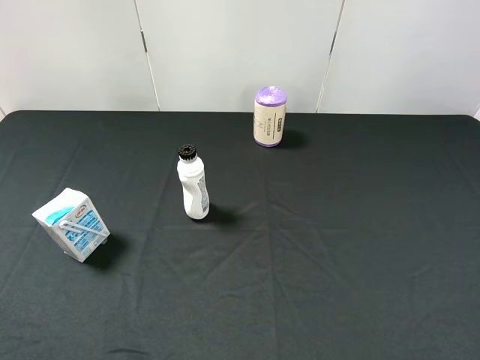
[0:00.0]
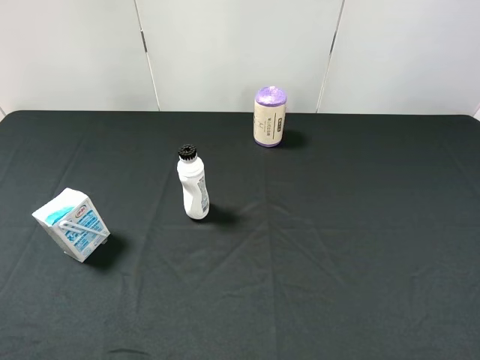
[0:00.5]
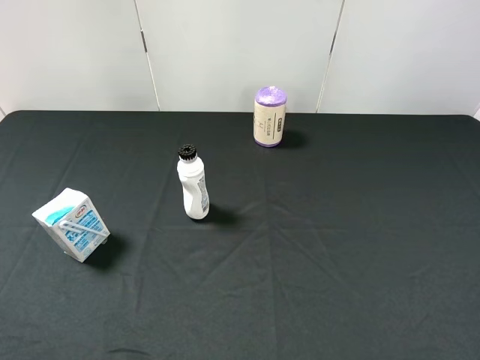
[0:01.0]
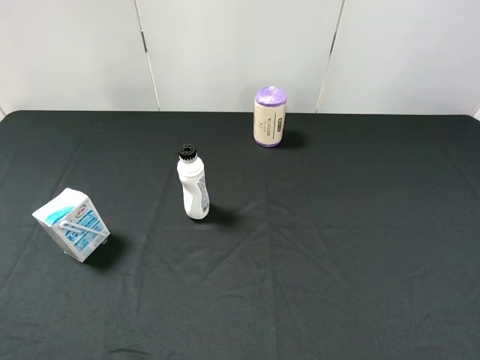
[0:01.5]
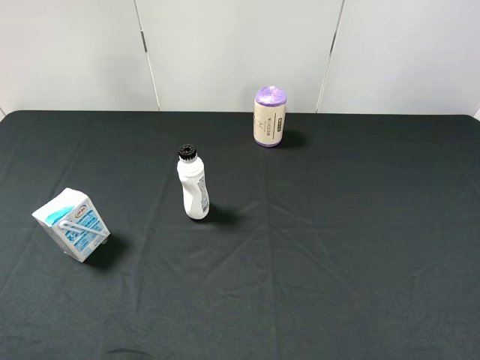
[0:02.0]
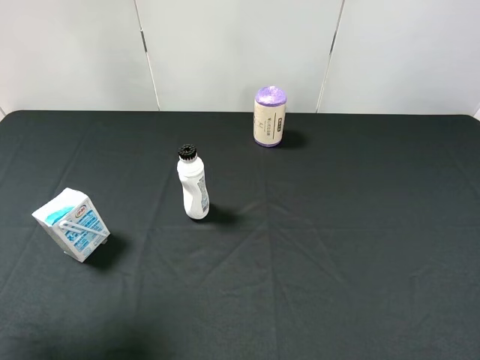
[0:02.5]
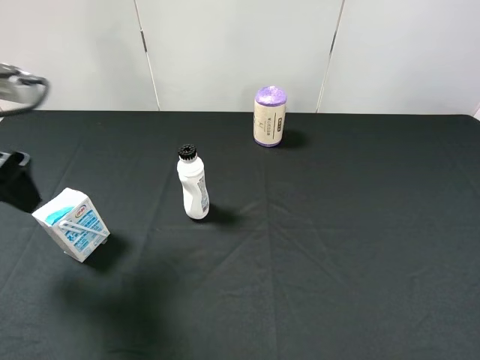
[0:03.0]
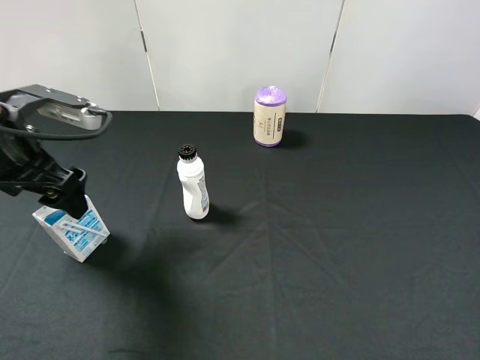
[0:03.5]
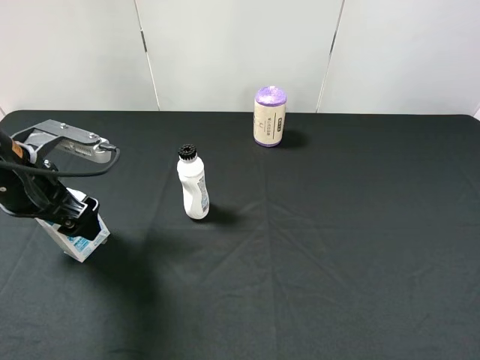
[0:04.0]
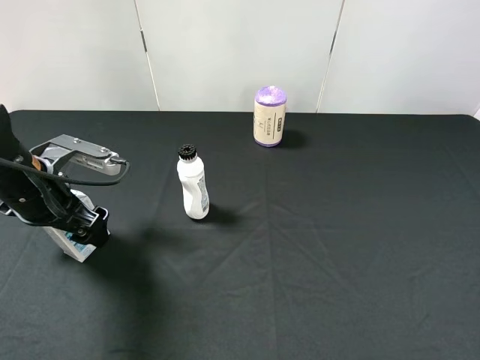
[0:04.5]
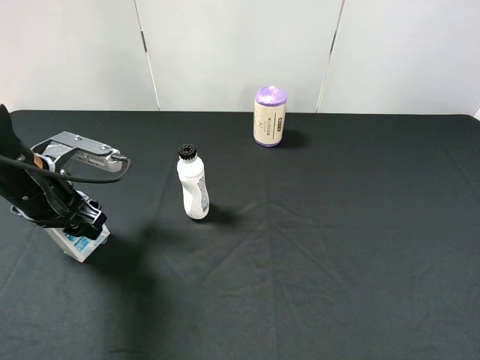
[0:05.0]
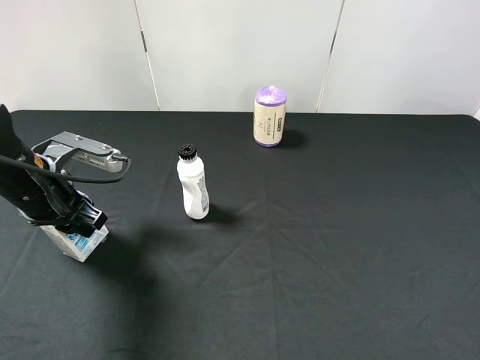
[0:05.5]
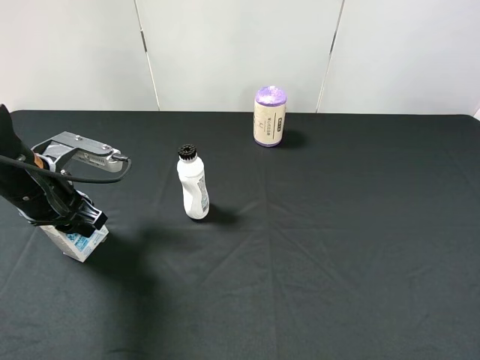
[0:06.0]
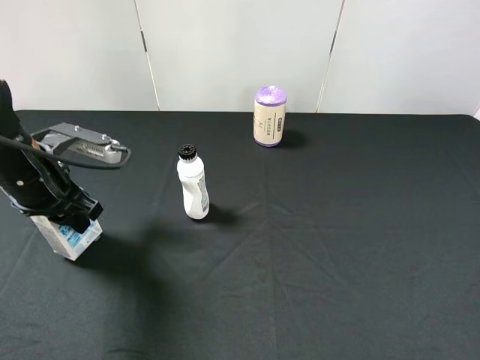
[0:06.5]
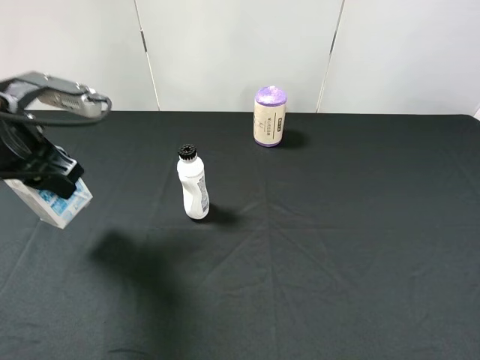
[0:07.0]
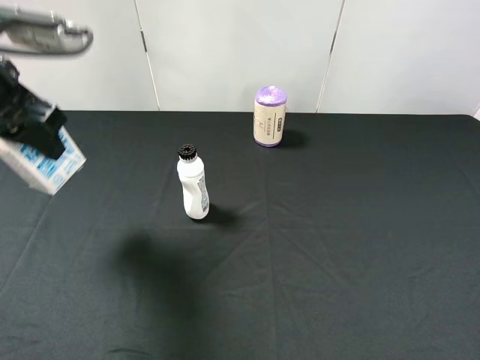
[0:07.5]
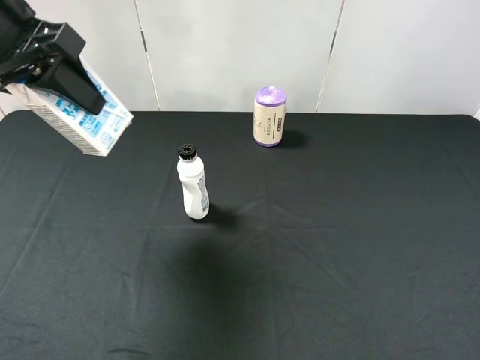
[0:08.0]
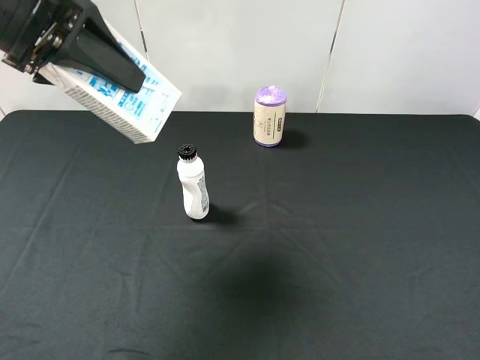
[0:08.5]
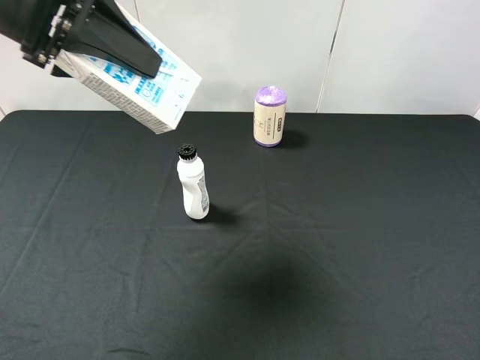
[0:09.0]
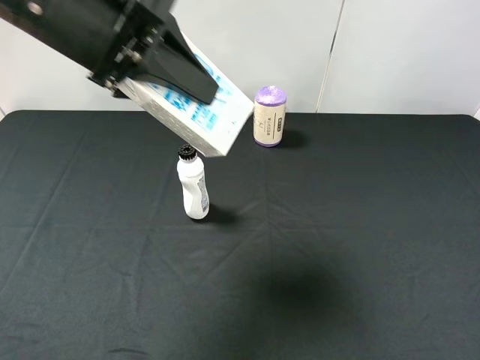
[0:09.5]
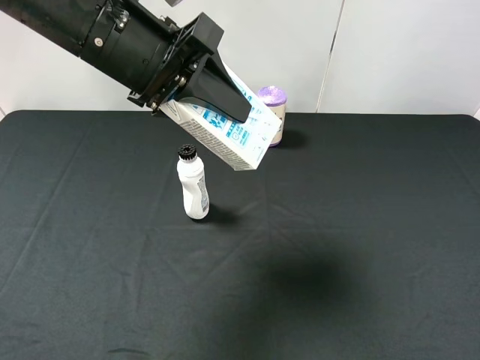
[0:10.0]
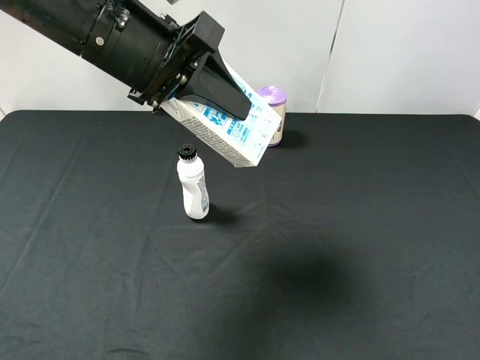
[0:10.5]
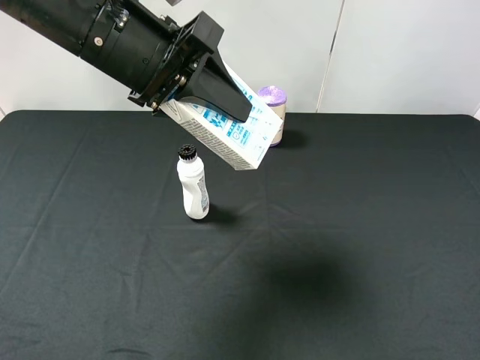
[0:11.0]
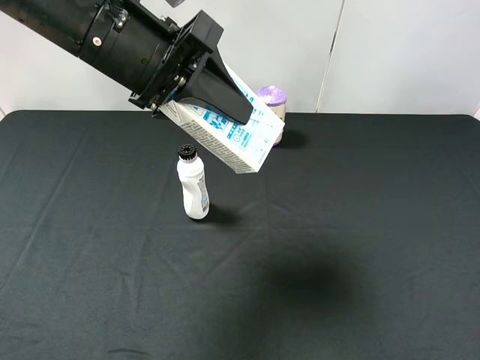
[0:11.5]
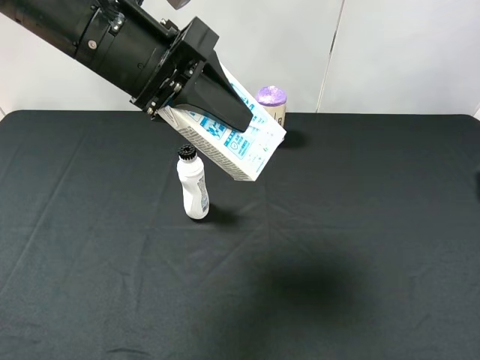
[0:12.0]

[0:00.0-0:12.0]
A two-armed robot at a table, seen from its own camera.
Task of the whole recording: use the left gripper to pick up the item and transfer it from the left gripper to the right gripper.
0:02.0 to 0:04.0: The left gripper moves forward and downward, roughly 25 cm.
0:04.0 to 0:06.0: The left gripper closes up.
0:06.0 to 0:08.0: The left gripper is displaced upward by some 20 cm.
0:08.0 to 0:10.0: The left gripper heads to the right, covering roughly 10 cm.
0:10.0 to 0:12.0: The right gripper travels upward, forward and to the left by roughly 10 cm.

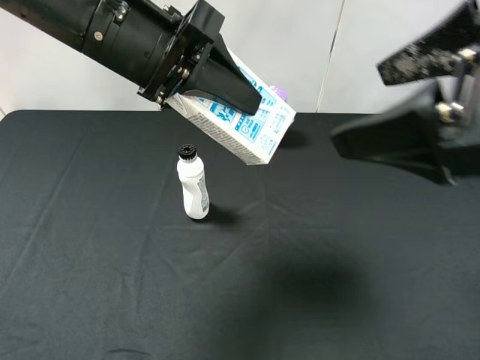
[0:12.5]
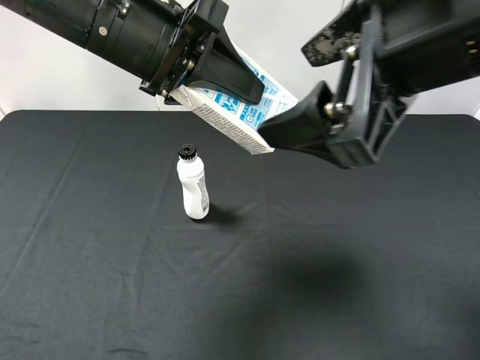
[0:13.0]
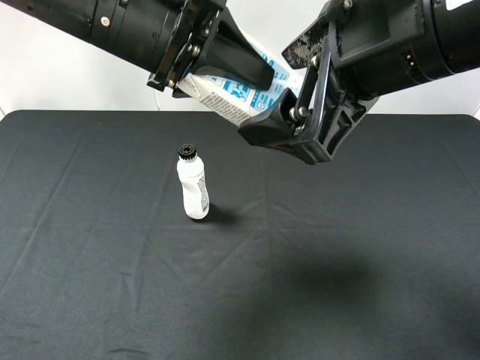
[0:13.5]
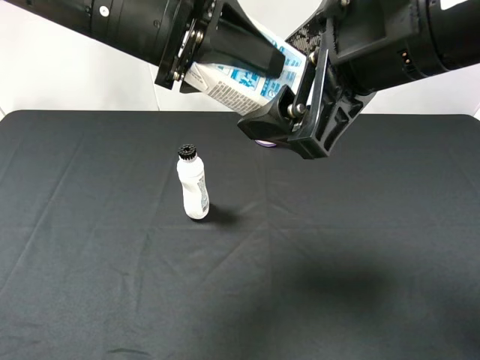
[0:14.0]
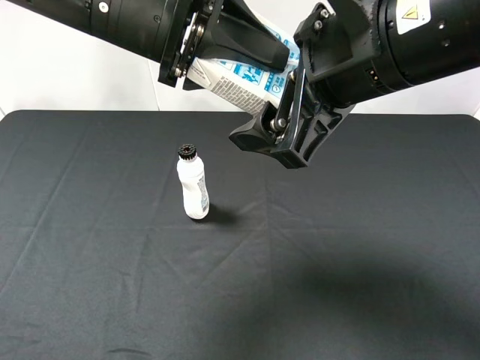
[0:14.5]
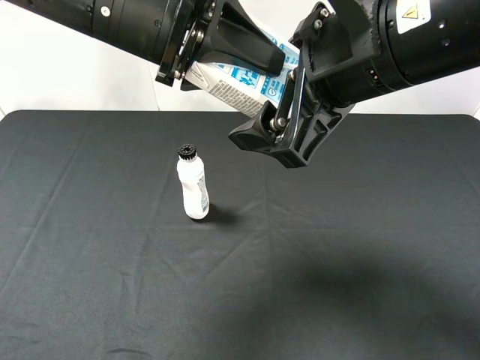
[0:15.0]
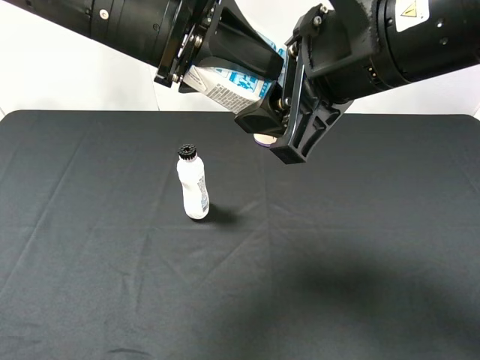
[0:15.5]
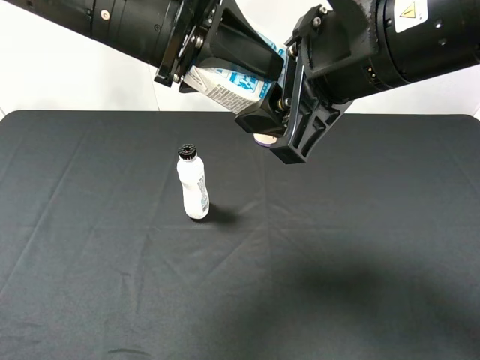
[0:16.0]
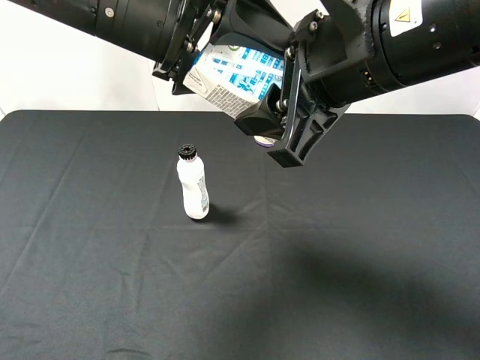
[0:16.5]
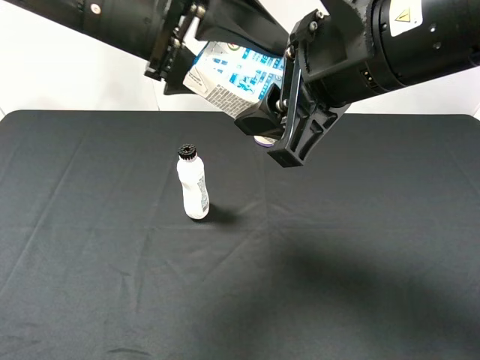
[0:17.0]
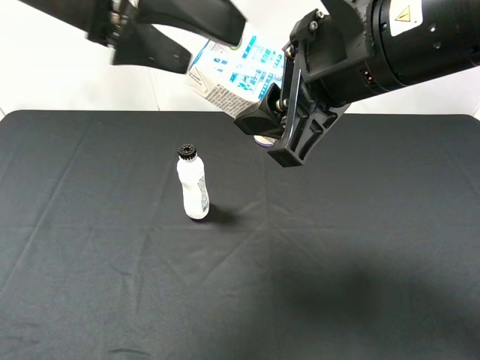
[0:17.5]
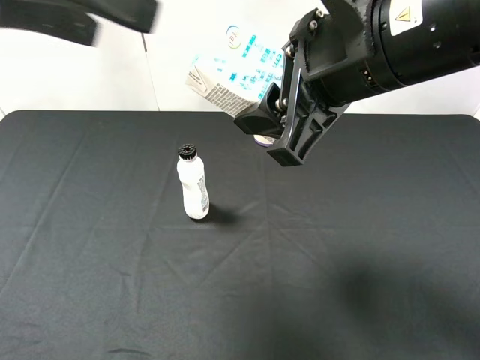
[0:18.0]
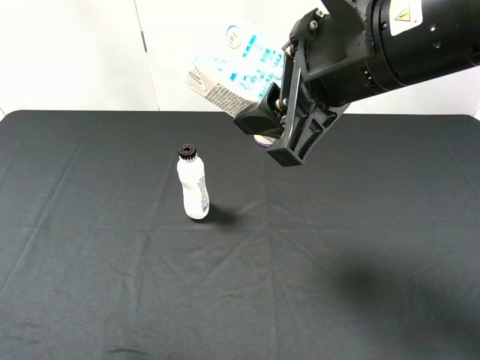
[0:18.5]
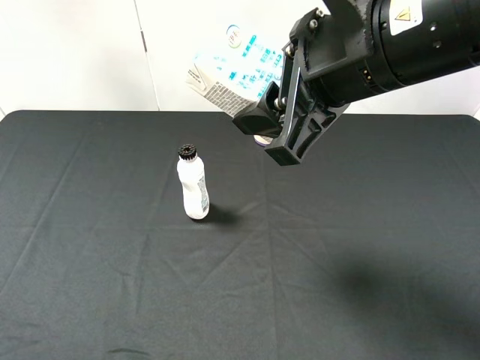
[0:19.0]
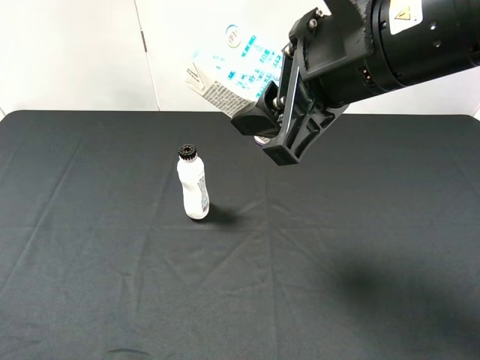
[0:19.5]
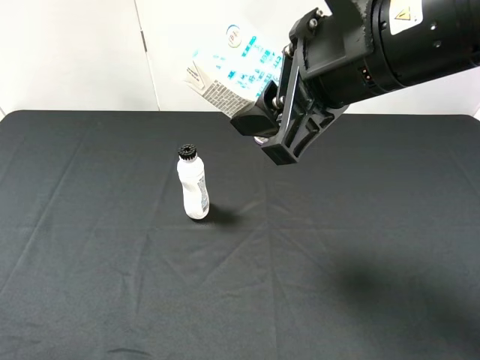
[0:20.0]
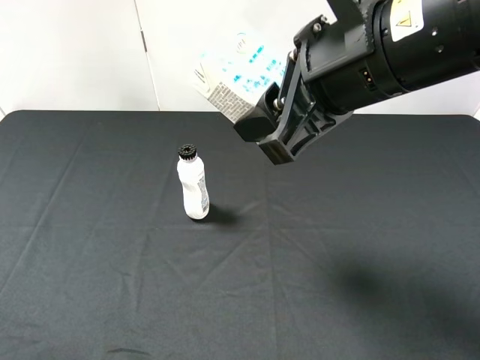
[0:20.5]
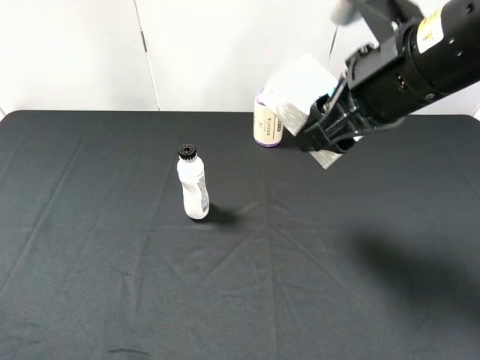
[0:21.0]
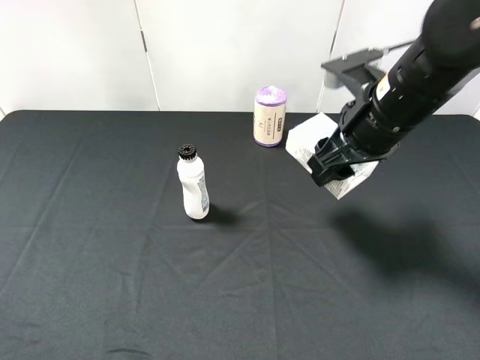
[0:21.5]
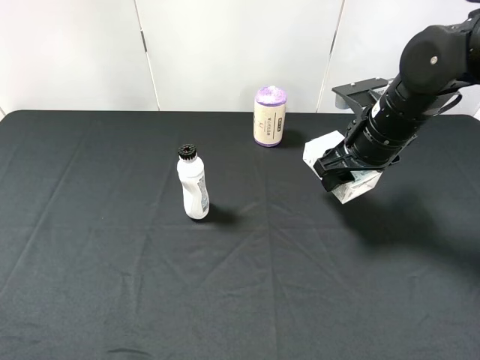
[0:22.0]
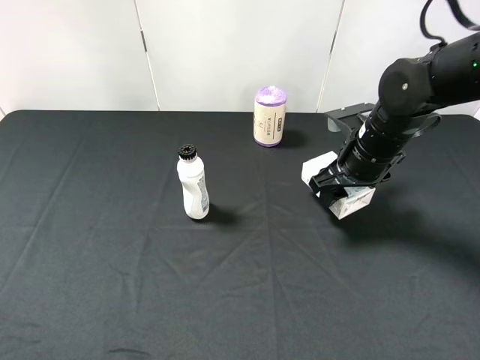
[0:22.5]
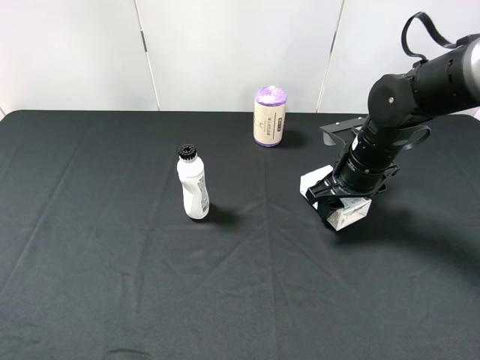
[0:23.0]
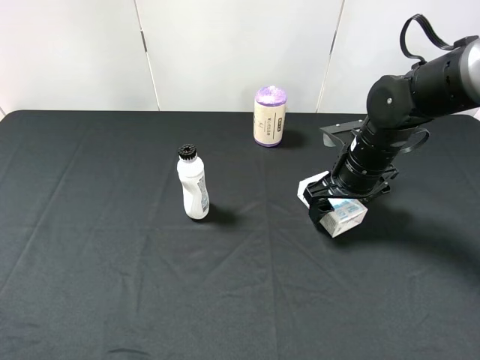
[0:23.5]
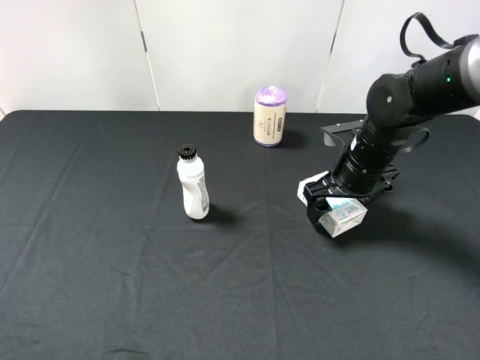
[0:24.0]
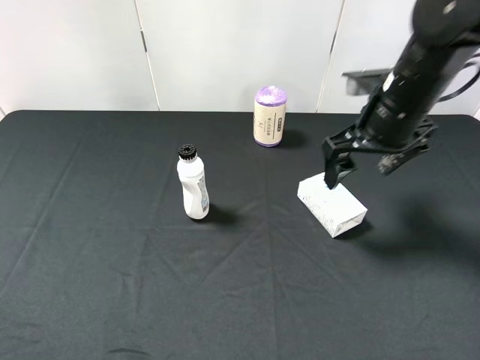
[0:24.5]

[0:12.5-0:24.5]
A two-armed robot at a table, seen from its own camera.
Task of the whole recording: use the left gripper to pick up the item and transfer it from the left gripper to the right gripper.
0:12.5 to 0:14.5: The right gripper goes roughly 5 cm to the left.
0:14.5 to 0:16.5: The right gripper closes. Meanwhile the left gripper opens its fingers.
0:16.5 to 0:18.5: The left gripper heads backward, to the left and upward, covering some 25 cm.
0:18.5 to 0:20.5: The left gripper moves downward and backward, some 15 cm.
0:20.5 to 0:22.5: The right gripper moves downward, forward and to the right, approximately 25 cm.
0:22.5 to 0:24.5: The right gripper goes roughly 10 cm upward, and opens.

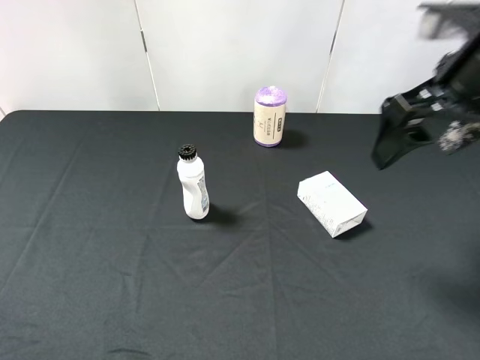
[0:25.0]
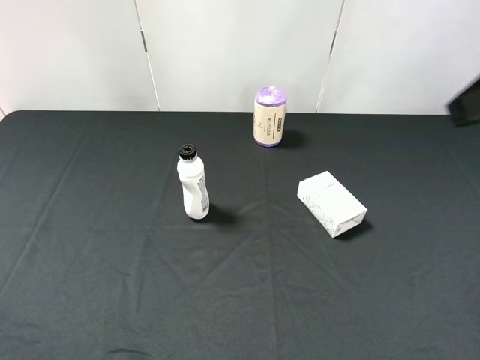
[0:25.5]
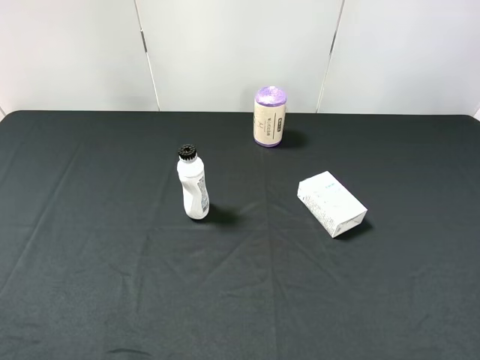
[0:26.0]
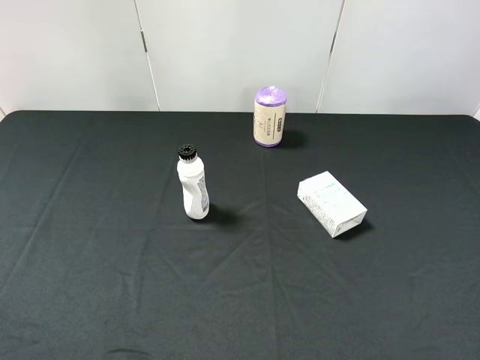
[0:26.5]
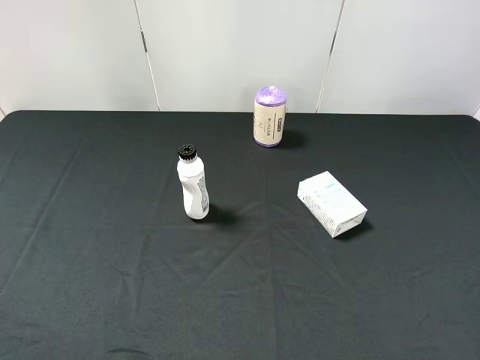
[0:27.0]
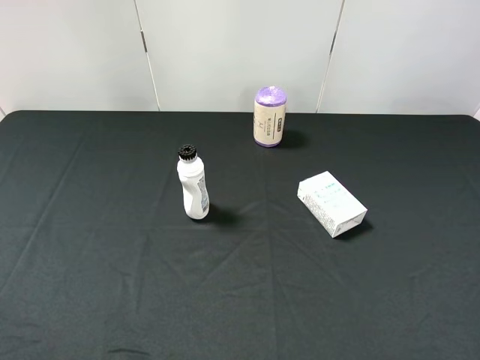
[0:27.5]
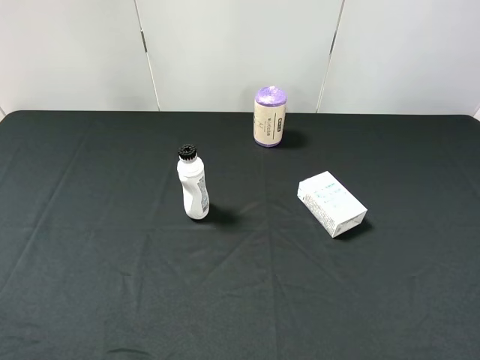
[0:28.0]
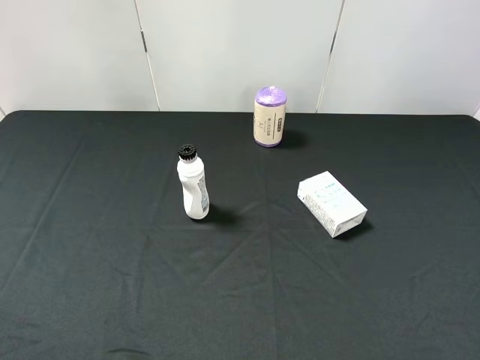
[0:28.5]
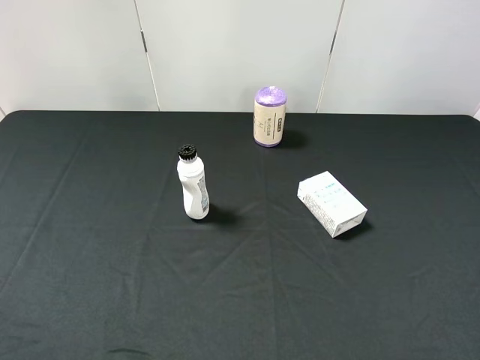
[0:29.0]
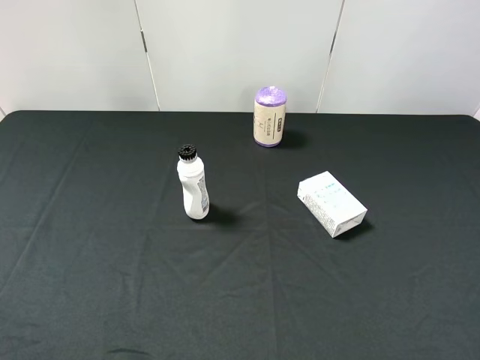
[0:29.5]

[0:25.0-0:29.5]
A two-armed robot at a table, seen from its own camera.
Task of the whole recording: use the left gripper to pick up the item and transfer it from the left gripper to the right gripper.
0:25.0 to 0:27.0: The right gripper heads backward, covering some 20 cm.
